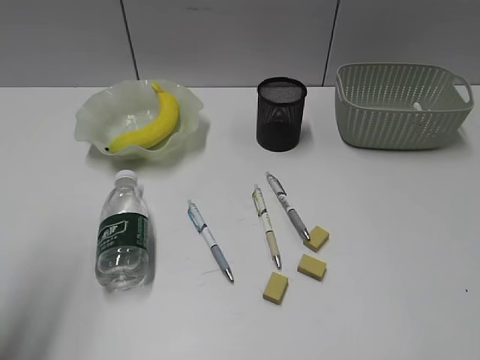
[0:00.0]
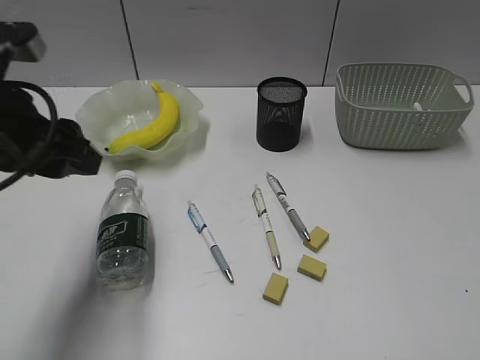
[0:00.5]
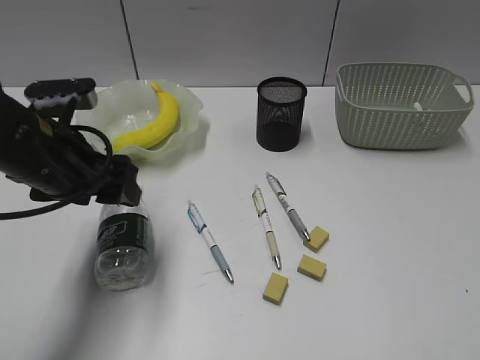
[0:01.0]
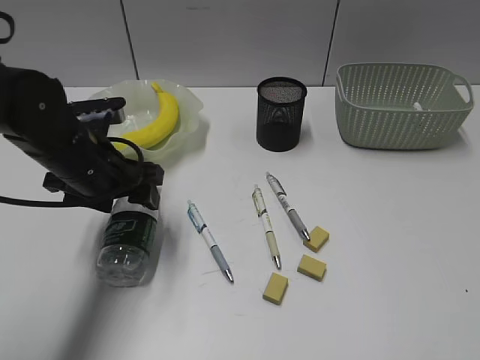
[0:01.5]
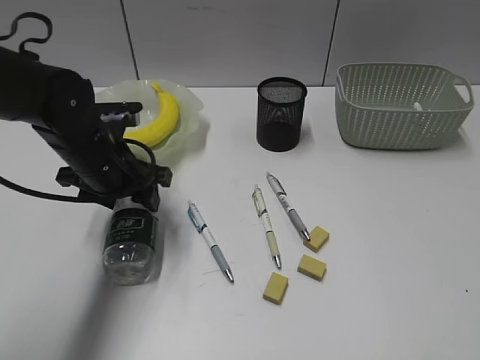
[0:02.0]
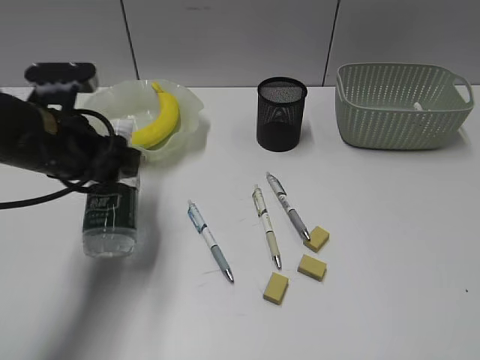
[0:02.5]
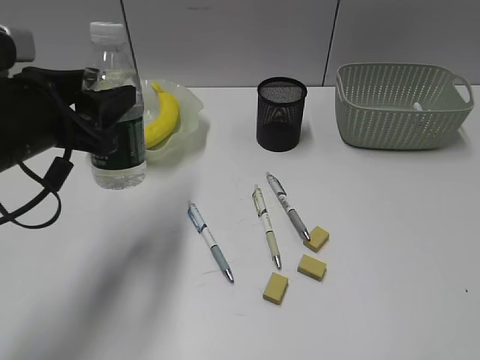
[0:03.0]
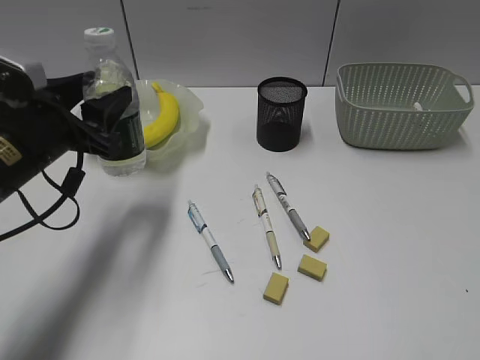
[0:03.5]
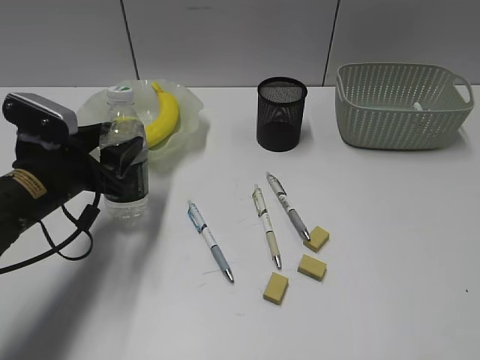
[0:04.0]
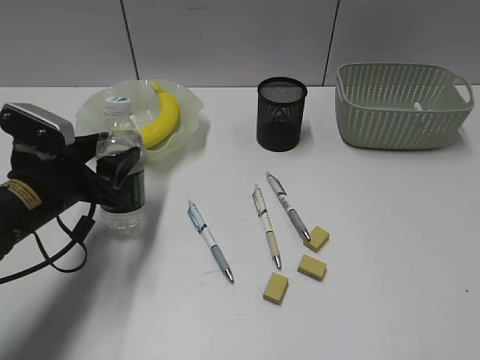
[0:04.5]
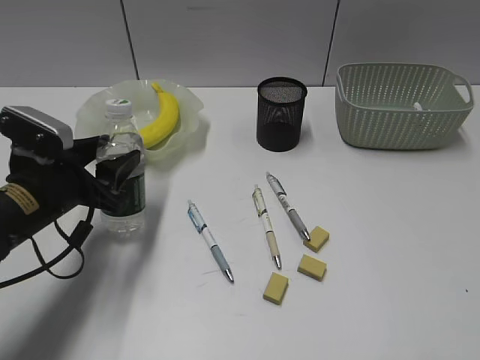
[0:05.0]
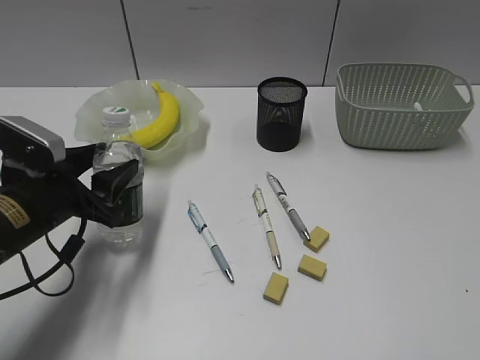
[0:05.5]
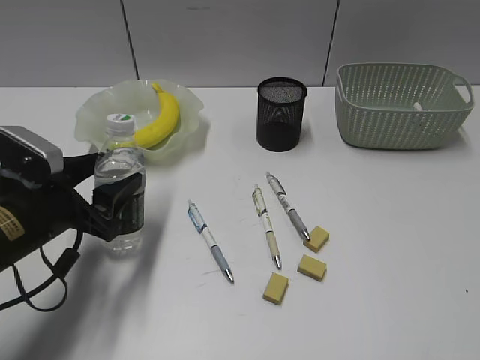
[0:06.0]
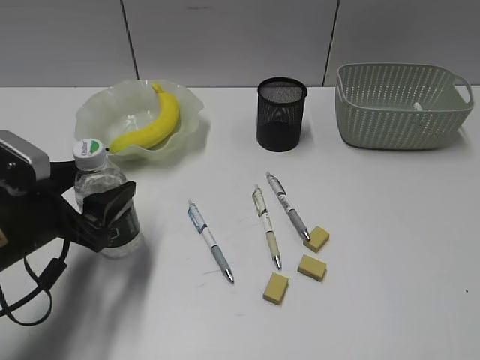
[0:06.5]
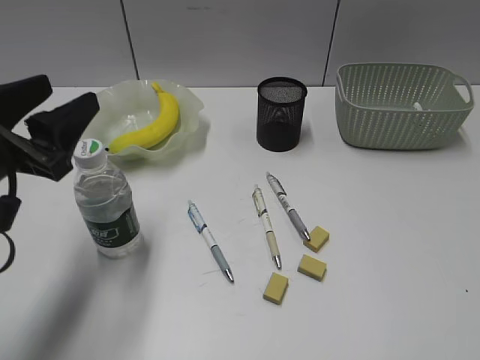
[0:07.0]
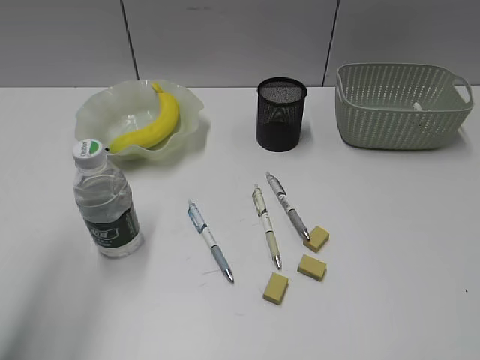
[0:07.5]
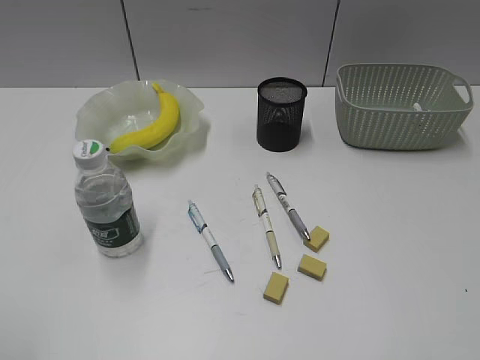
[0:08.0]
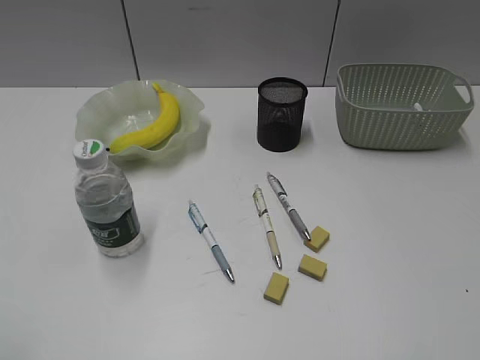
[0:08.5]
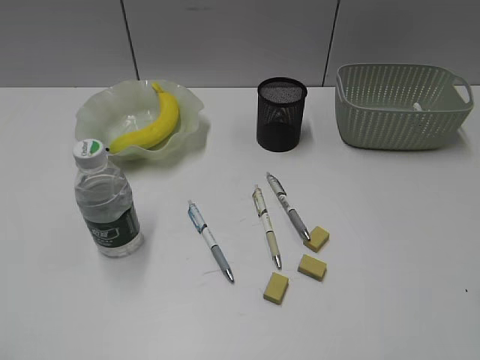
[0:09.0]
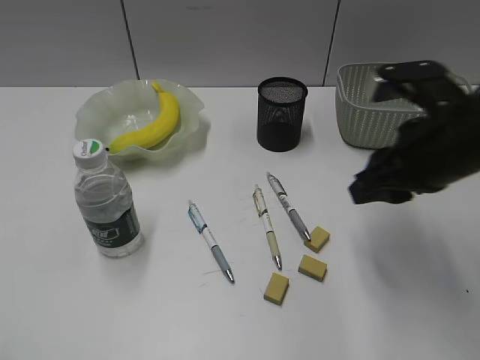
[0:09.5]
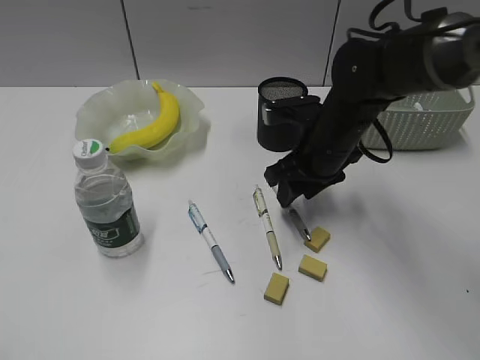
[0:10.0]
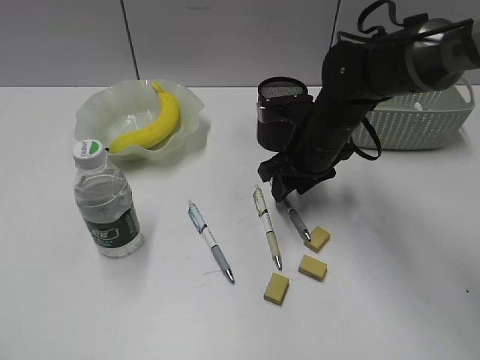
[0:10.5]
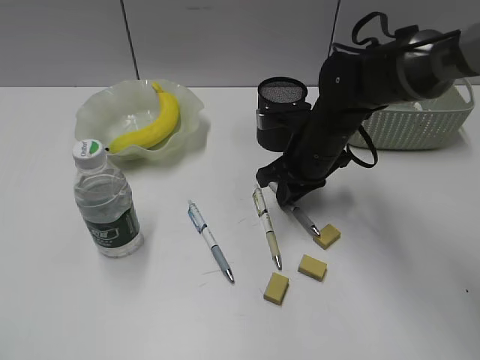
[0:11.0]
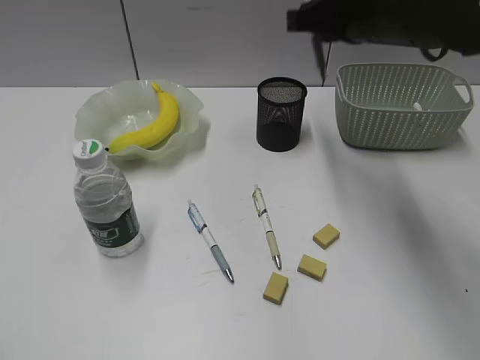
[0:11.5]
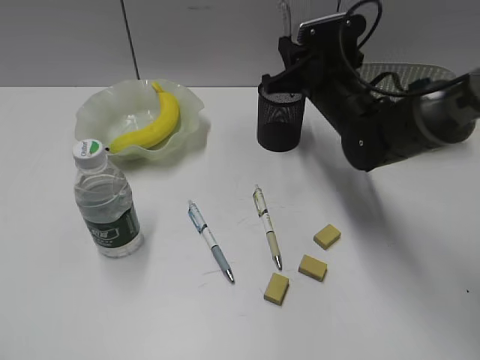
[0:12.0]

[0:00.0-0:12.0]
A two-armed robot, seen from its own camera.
Step, 0:00.0 to 0:02.0: Grasp the bottle with left gripper.
Step, 0:02.5 to 0:06.5: Stand the bottle with left gripper.
Step, 0:07.0 to 0:11.0: Grasp the gray pen with right gripper.
0:00.0 to 0:02.0: The left gripper goes roughly 30 cm forward, downward and to the right, and opens.
0:02.0 to 0:04.0: The left gripper travels upward and back again, approximately 10 cm each way.
0:04.0 to 0:06.0: There are only small adjustments of the grippers.
0:06.0 to 0:08.0: The left gripper shifts about 30 cm backward, upward and to the left.
0:08.0 to 0:10.0: The right gripper moves forward, to the left and downward, roughly 40 cm, and opens its fingers.
0:10.0 to 0:12.0: The right gripper moves forward, approximately 5 cm, reaches roughly 15 cm upward, then returns, and closes its fingers.

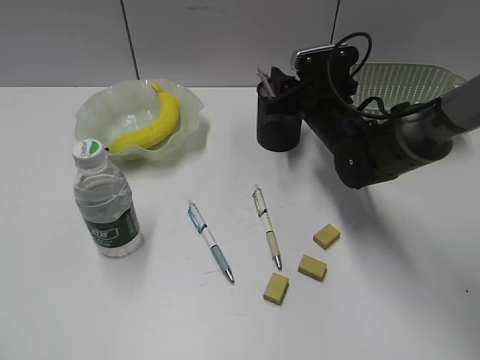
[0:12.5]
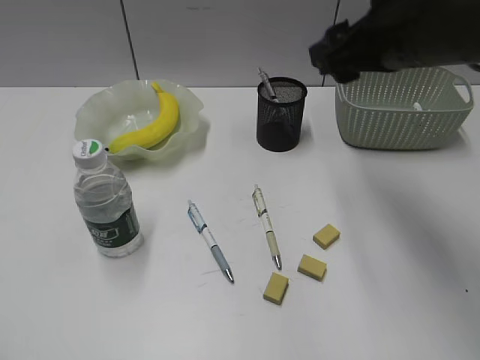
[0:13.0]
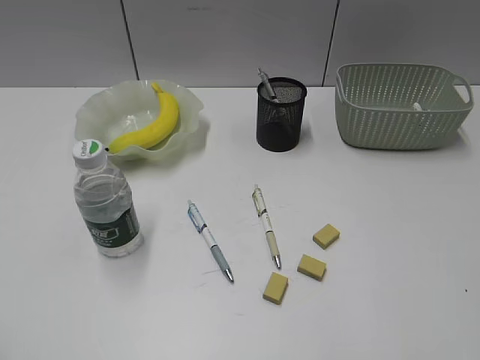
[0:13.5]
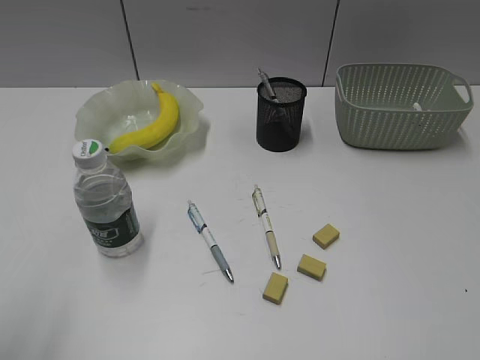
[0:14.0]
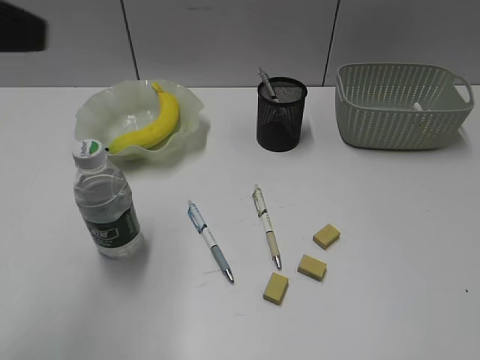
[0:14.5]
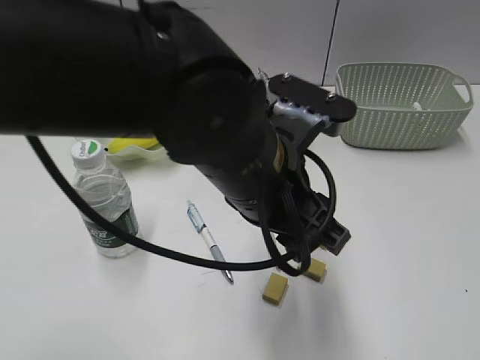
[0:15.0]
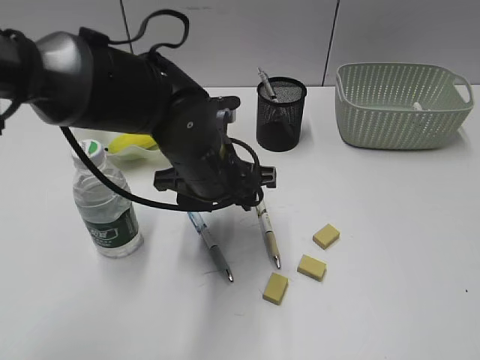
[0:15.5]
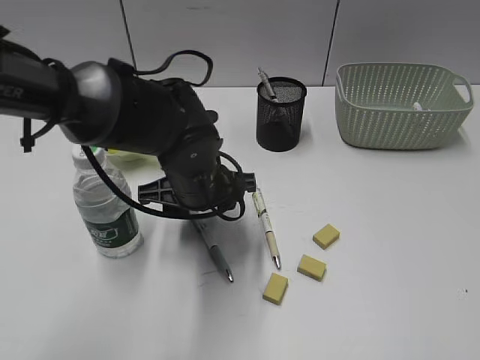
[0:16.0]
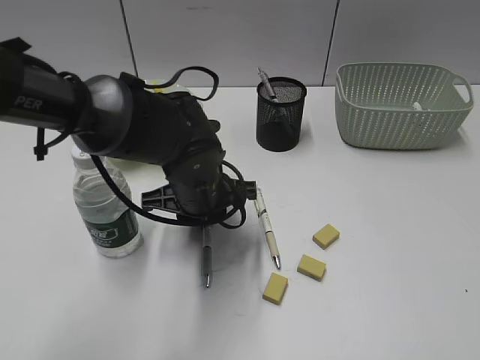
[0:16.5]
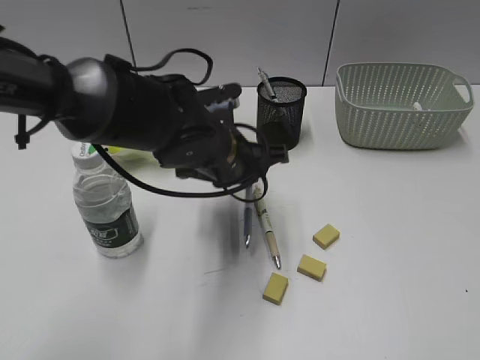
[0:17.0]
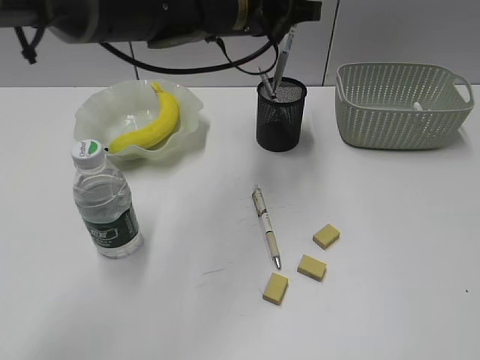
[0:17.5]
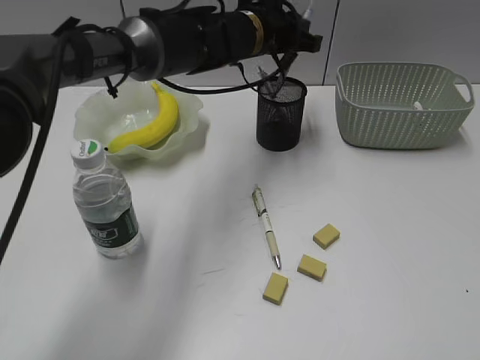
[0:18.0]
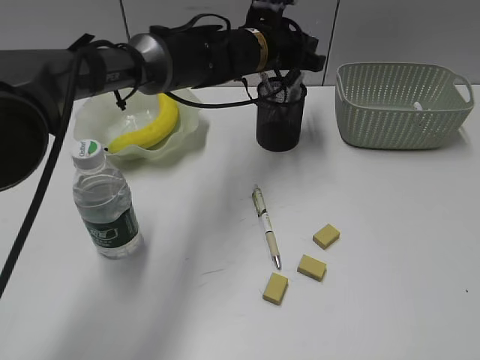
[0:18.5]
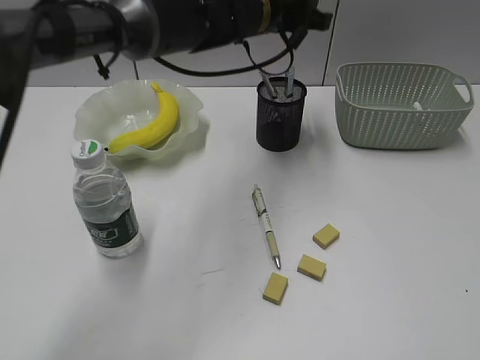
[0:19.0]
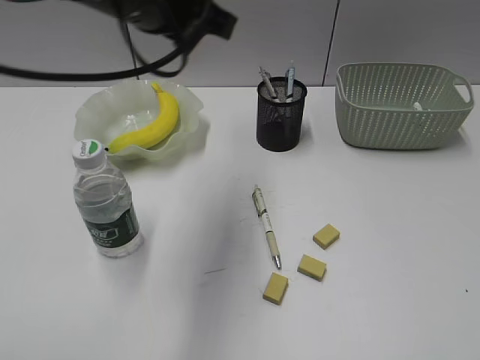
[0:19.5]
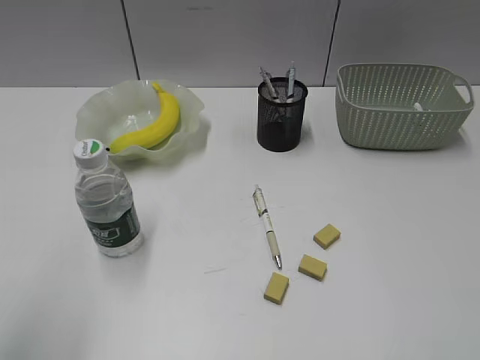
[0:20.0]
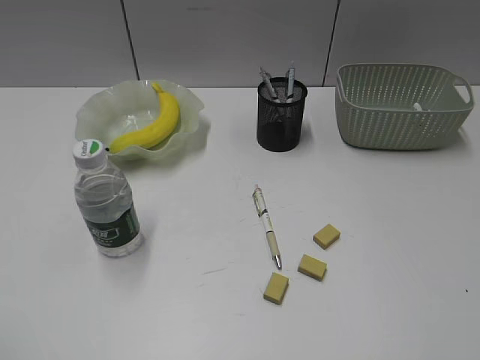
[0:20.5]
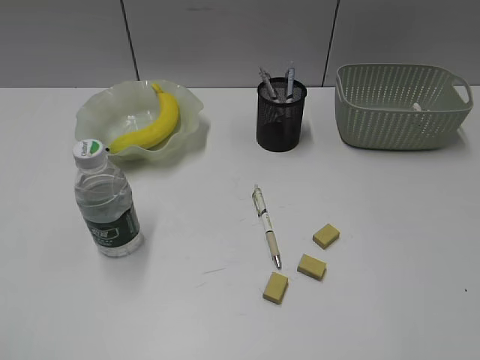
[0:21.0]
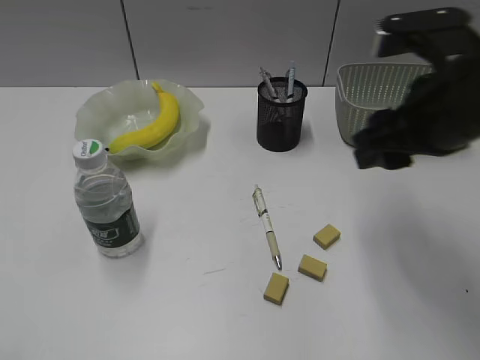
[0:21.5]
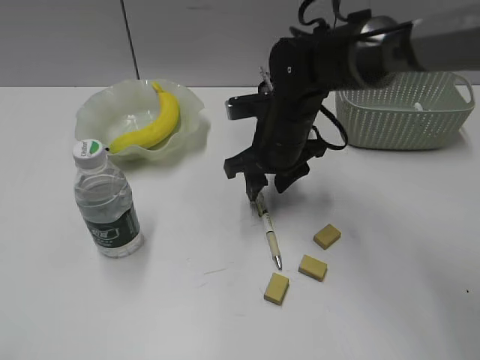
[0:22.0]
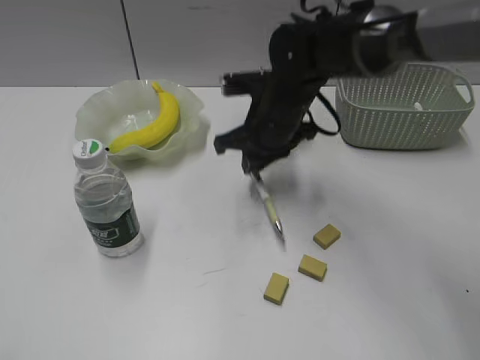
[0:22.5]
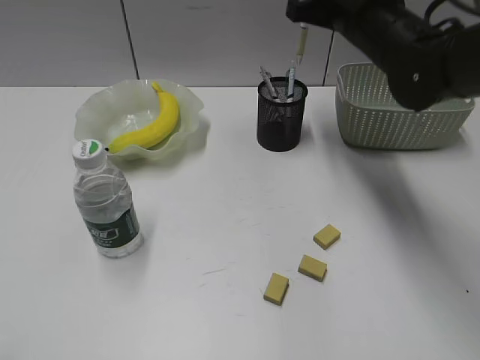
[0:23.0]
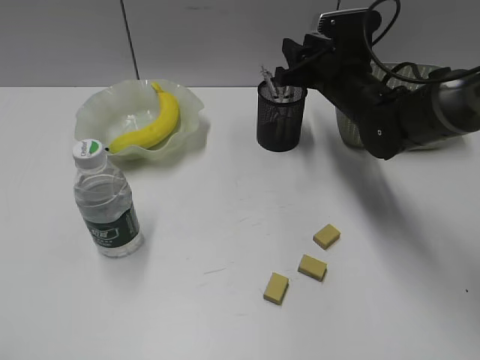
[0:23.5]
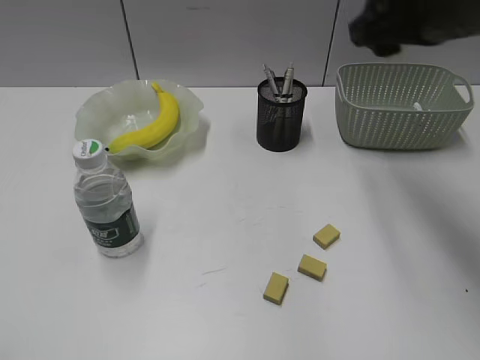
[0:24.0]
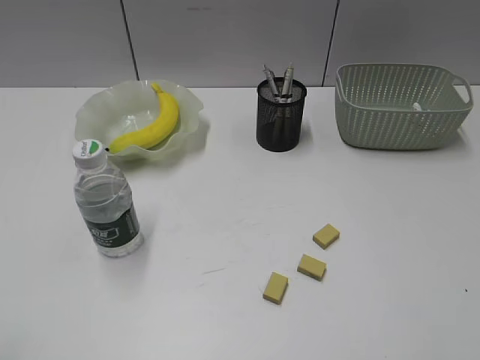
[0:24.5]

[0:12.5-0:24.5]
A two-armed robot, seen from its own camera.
Step, 0:13.0 to 0:16.5: Grasp the blue pen with left gripper.
Step, 0:17.0 to 0:18.5: Place the blue pen in pen holder with left gripper.
Step, 0:19.0 to 0:22.0: Grasp the yellow pen with right gripper.
Step, 0:22.5 to 0:23.5: Place the yellow pen in pen holder with right gripper.
0:12.5 to 0:14.5: The right gripper goes some 50 cm backward, to the right and upward. Meanwhile the left gripper is displaced forward, to the right and upward by roughly 25 cm.
0:14.5 to 0:16.5: The left gripper heads downward, to the right and forward, covering about 35 cm, and opens, then closes once more.
0:16.5 to 0:18.5: The left gripper moves forward, upward and to the right, about 20 cm.
0:18.5 to 0:20.5: The left gripper shifts approximately 60 cm backward and to the left, and opens its fingers.
0:20.5 to 0:22.5: The right gripper goes some 50 cm forward and to the left, and closes its fingers.
0:22.5 to 0:24.5: The right gripper goes about 40 cm backward, to the right and upward, and opens up.

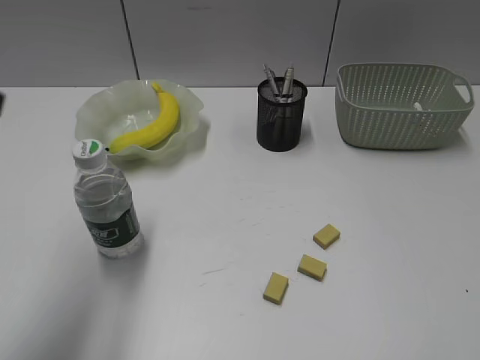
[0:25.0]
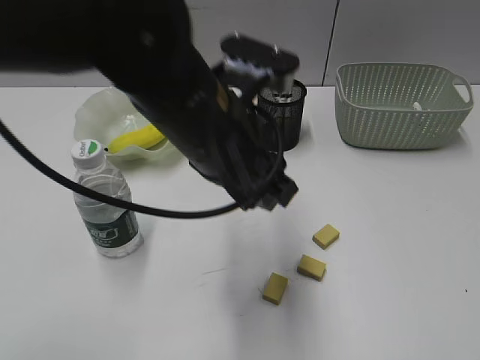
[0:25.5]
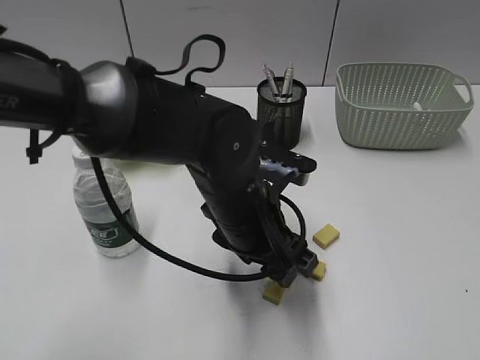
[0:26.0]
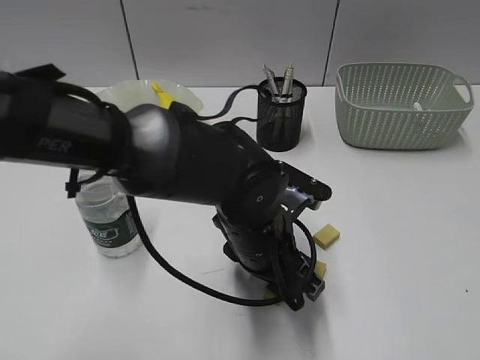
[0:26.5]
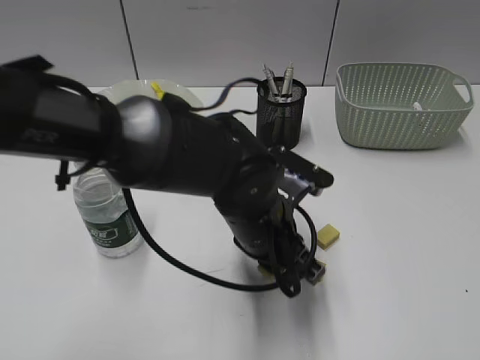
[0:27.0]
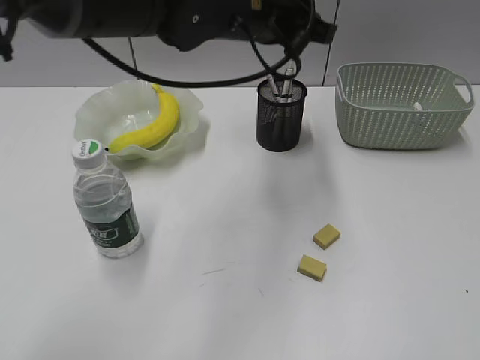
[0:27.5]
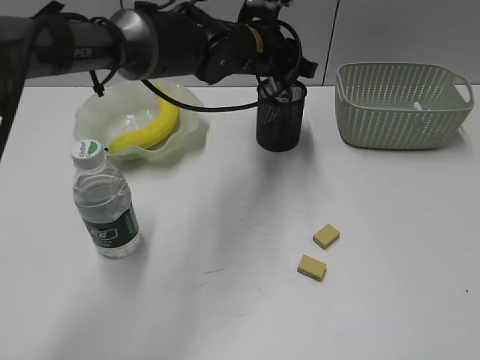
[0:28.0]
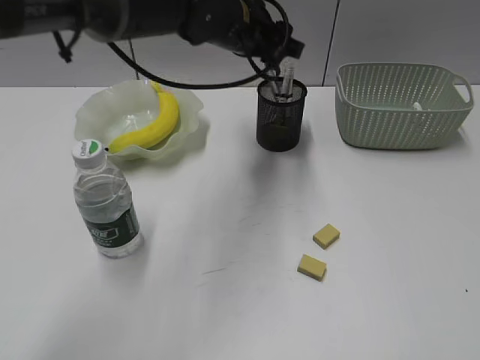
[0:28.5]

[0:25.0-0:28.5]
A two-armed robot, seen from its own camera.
Step, 0:27.0 to 0:28.0: Place the eraser in pen holder with left gripper.
0:25.0 to 0:27.0: The left gripper shifts approximately 35 cm to the right and downward.
0:27.0 to 0:28.5: The left gripper shifts approximately 20 cm forward and upward, and opens up.
